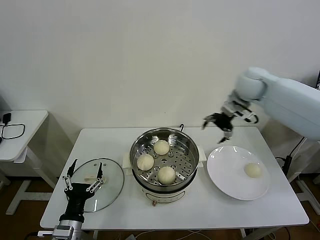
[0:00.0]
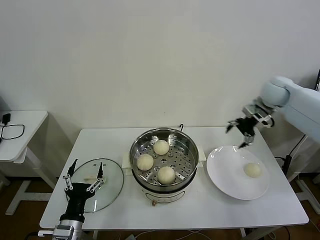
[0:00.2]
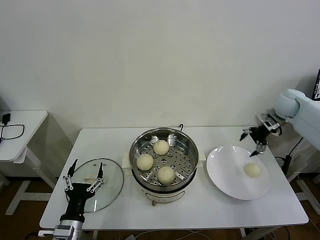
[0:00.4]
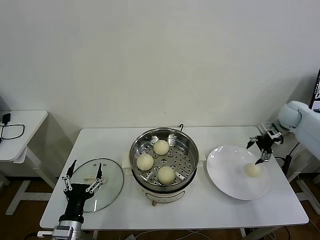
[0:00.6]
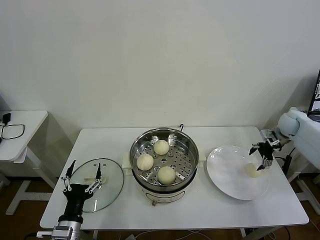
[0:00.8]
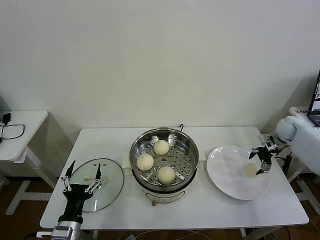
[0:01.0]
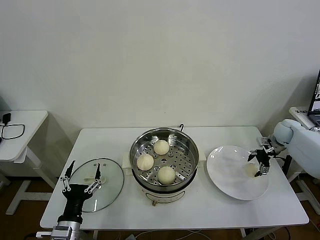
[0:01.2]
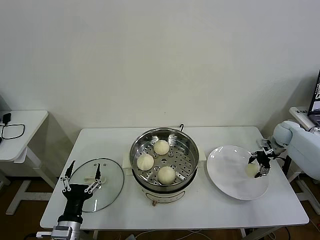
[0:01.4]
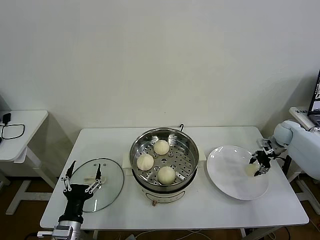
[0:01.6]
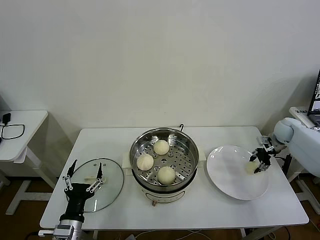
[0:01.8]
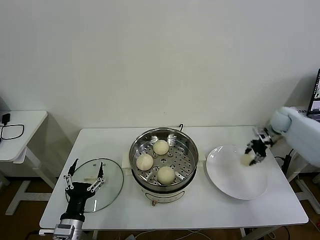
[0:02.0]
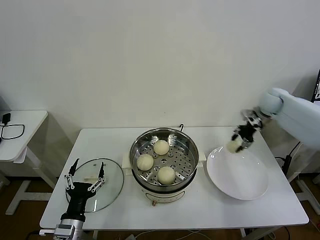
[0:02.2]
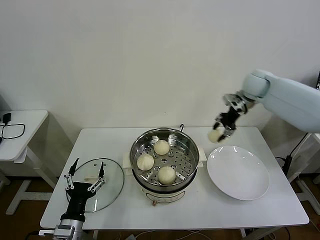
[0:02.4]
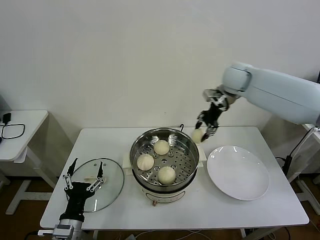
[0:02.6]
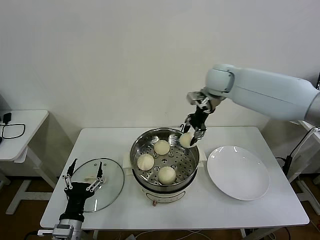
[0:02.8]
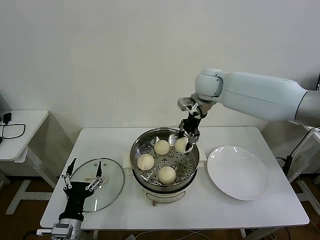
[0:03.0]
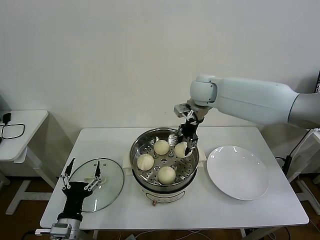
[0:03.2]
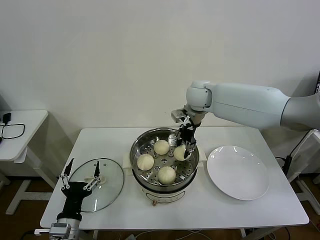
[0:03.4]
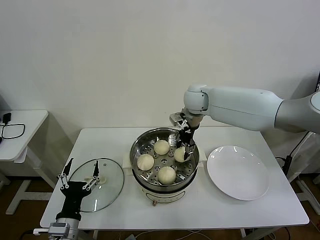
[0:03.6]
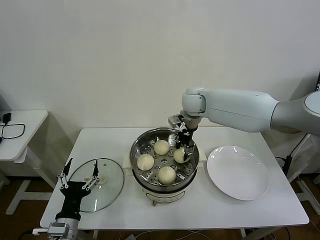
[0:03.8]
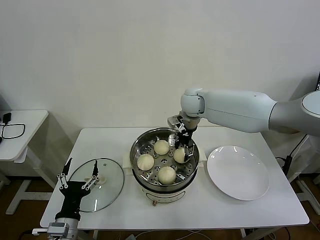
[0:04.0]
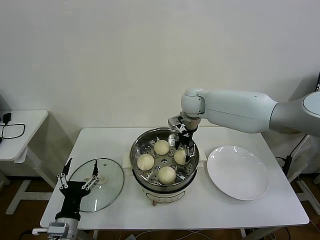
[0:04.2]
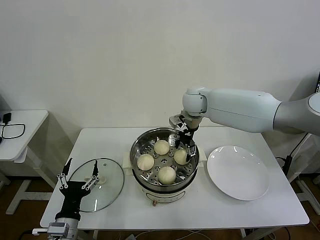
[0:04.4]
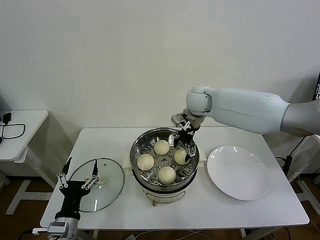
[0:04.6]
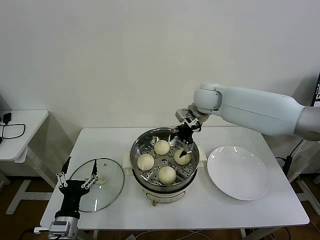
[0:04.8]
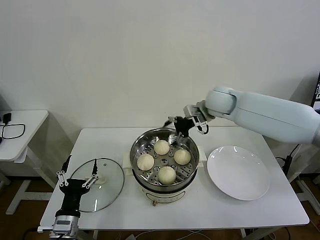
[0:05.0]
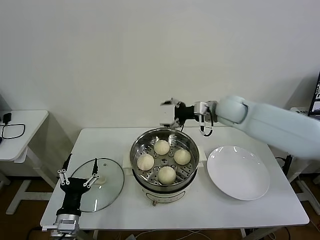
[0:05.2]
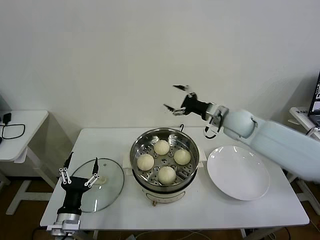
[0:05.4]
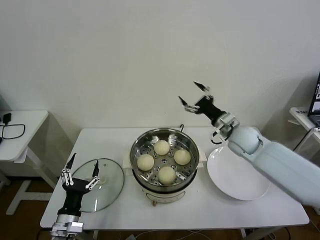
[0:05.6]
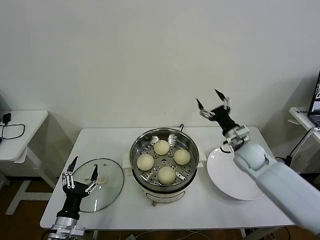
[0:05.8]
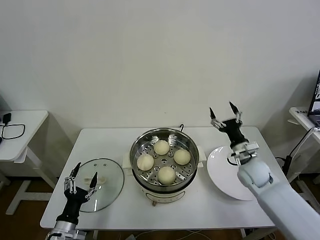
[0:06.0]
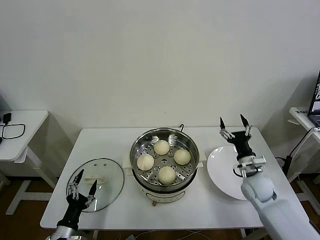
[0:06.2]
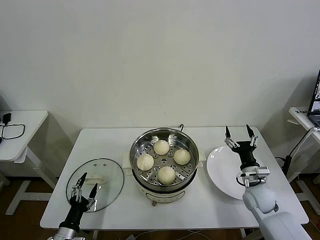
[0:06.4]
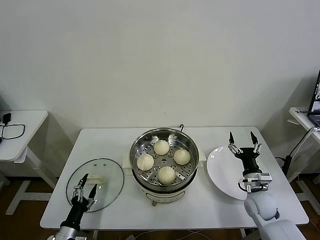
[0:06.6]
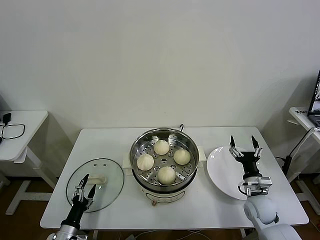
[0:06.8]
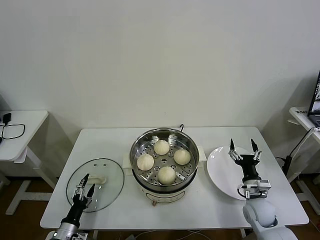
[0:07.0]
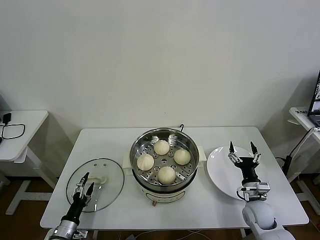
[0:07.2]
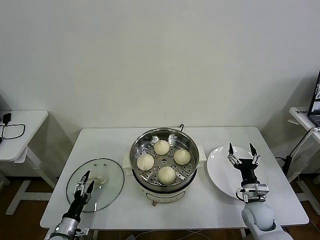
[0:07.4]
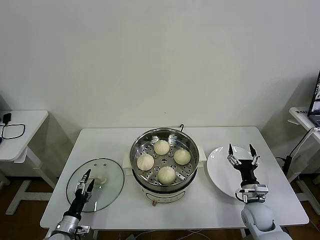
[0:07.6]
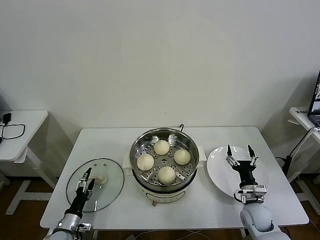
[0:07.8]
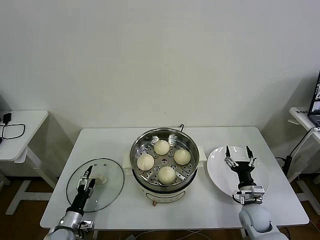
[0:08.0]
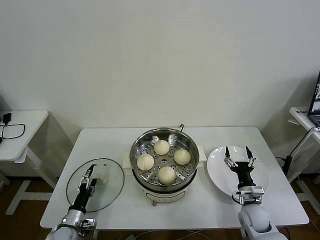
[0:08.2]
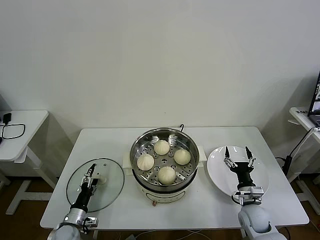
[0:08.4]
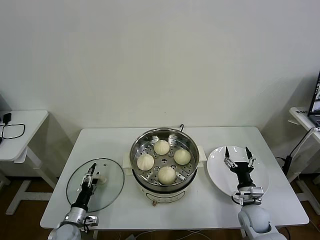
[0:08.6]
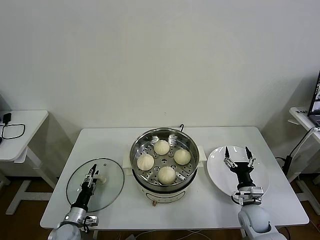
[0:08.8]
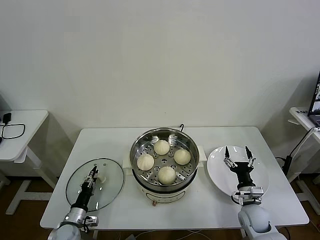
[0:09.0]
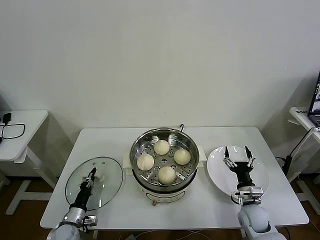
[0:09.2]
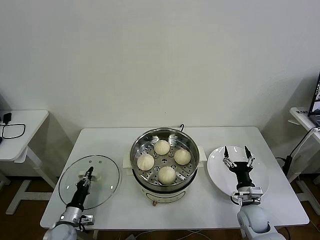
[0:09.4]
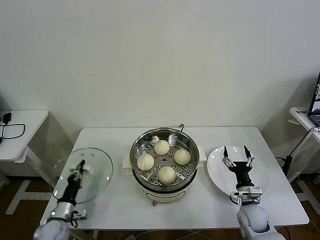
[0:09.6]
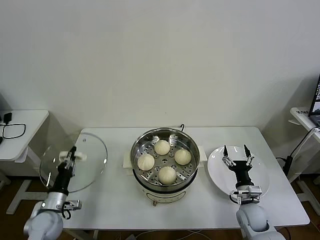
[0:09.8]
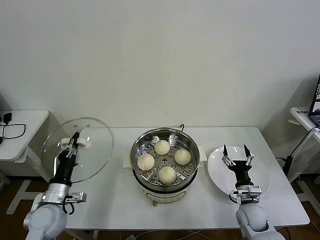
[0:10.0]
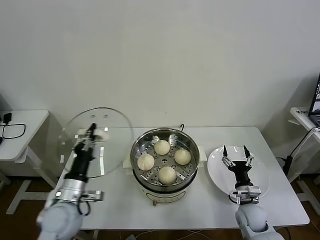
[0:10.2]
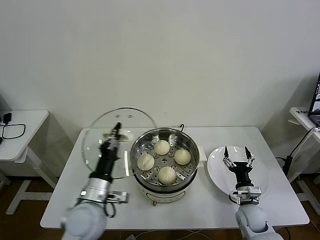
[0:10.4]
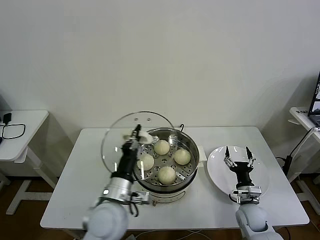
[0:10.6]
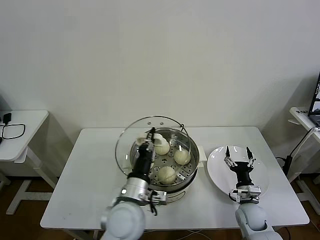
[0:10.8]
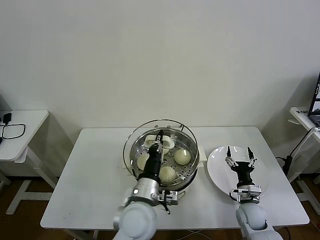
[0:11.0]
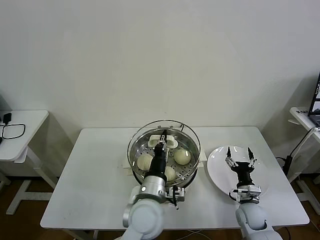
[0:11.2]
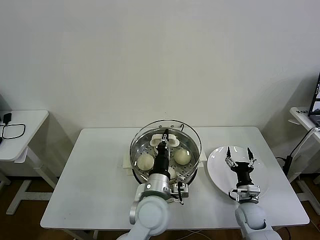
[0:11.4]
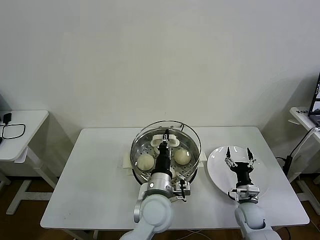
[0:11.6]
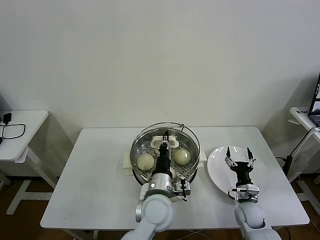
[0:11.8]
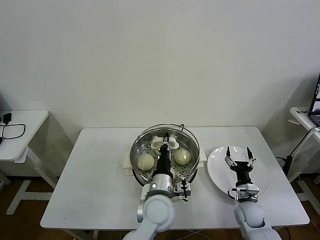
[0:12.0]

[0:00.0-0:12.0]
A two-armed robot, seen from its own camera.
Task of the whole recording: take steamed baozi put them in steamer then cover it.
Step, 0:00.0 to 0:01.6: Grasp the baozi in the plate with right gripper.
Step, 0:01.8 to 0:04.6: Place the baozi on the steamer with right gripper.
Step, 0:04.8 to 0:09.4: Grasp the pot lid with left gripper.
0:00.0 to 0:01.6: The right gripper travels downward and to the right by about 30 cm, and closes.
0:01.6 to 0:03.0: The right gripper is displaced to the left and upward by about 40 cm.
0:03.0 to 0:04.4: The right gripper moves downward, some 5 cm, and opens up.
0:04.4 to 0:06.0: The left gripper heads downward, covering some 5 cm; the right gripper shifts some 30 cm to the right, downward and backward.
0:06.0 to 0:07.6: The left gripper goes some 10 cm downward; the right gripper shifts roughly 15 cm downward and backward.
0:07.6 to 0:09.0: The left gripper closes.
0:09.0 to 0:10.4: The left gripper moves upward and to the right, some 25 cm, and closes up.
0:10.4 to 0:12.0: The left gripper is displaced to the right by about 20 cm.

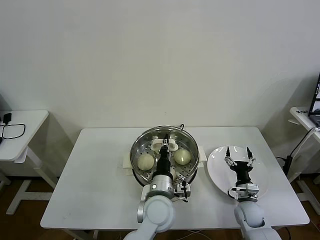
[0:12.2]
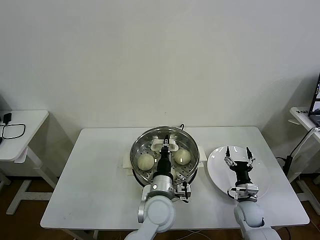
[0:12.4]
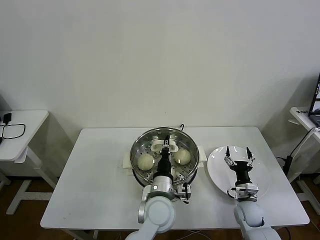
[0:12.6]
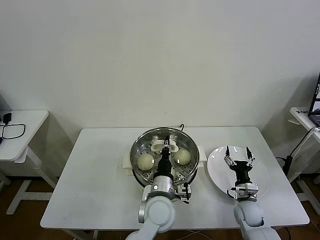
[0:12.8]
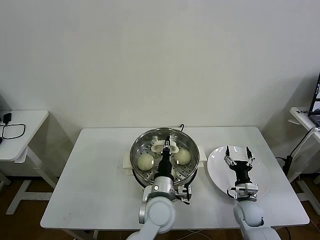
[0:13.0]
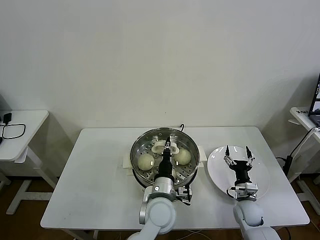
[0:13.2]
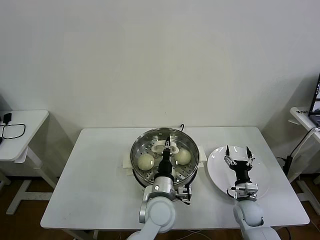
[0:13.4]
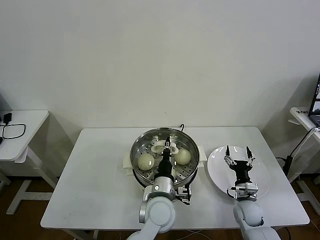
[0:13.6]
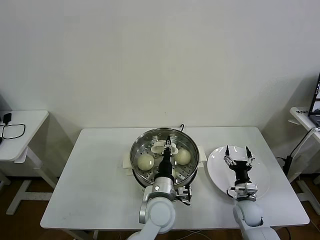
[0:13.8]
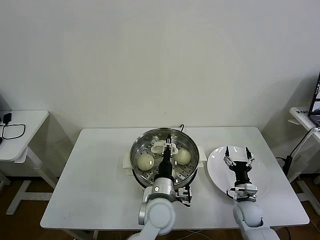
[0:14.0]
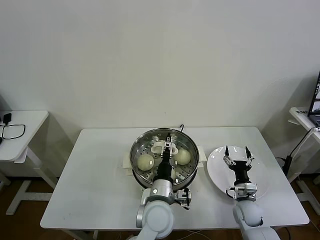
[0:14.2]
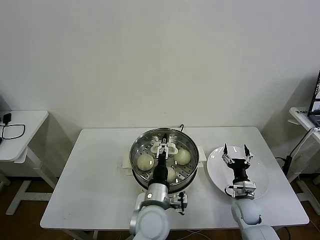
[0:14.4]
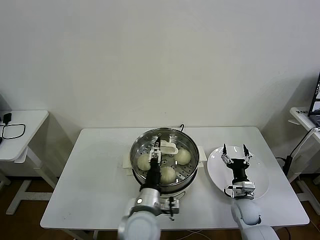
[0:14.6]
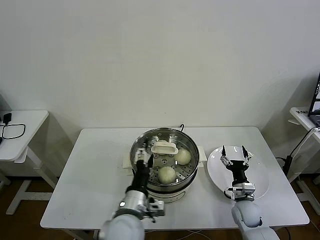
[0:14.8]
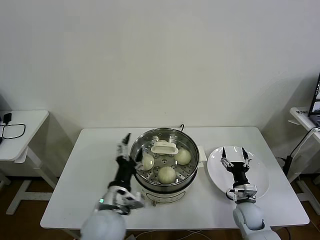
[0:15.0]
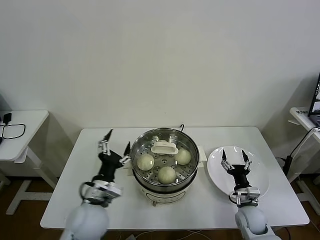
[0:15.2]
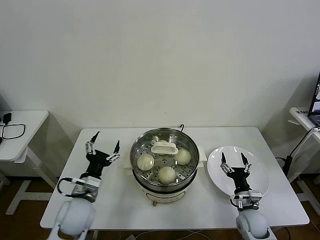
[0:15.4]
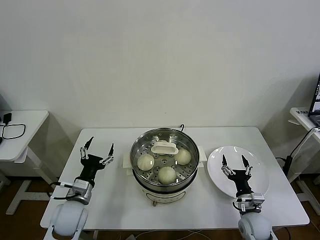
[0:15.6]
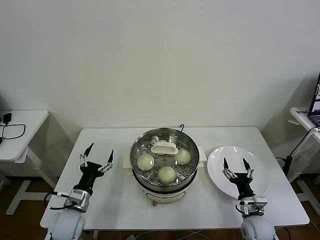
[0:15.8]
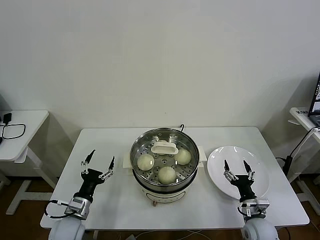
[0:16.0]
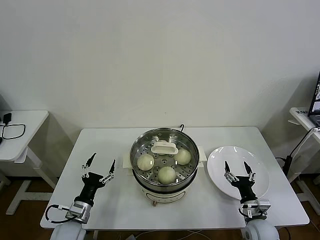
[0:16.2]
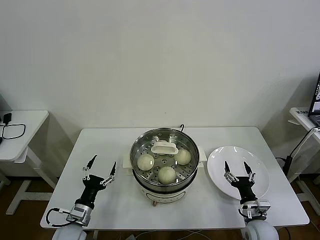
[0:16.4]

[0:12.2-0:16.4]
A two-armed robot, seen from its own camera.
Task of the whole recording: take steamed baozi put them in steamer then cover it.
Step, 0:12.2 to 0:14.2: Place the pot lid on the steamer with left gripper.
0:12.2 to 0:13.6: The grippers make only small movements.
0:13.6 to 0:15.0: The left gripper heads to the left, backward and upward, covering some 15 cm, and opens its fingers.
0:15.0 to 0:16.4: The right gripper travels backward by roughly 5 cm. Meanwhile the left gripper moves to the left and downward, some 25 cm.

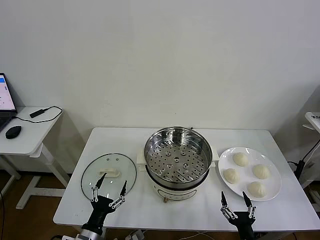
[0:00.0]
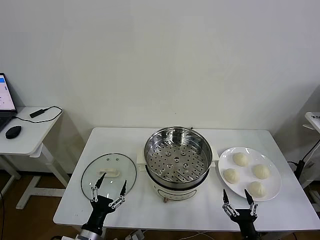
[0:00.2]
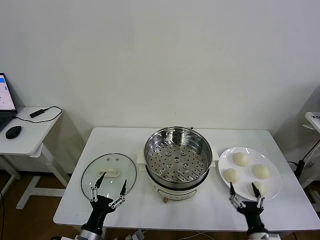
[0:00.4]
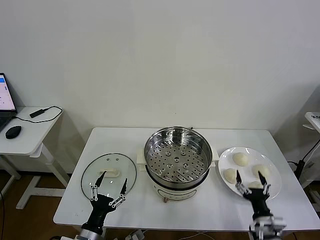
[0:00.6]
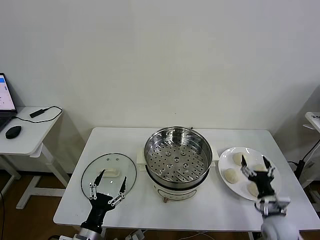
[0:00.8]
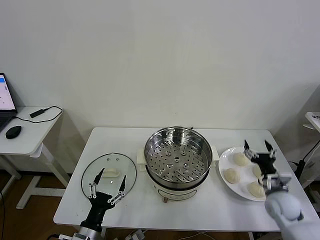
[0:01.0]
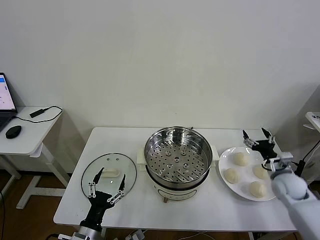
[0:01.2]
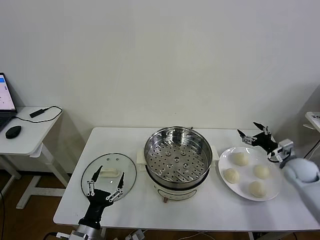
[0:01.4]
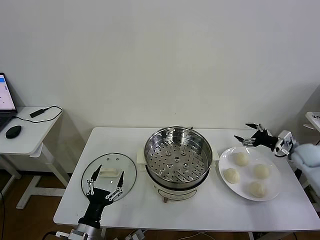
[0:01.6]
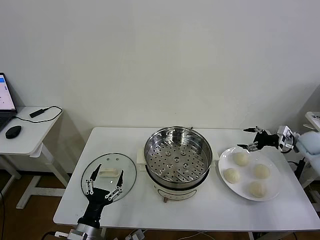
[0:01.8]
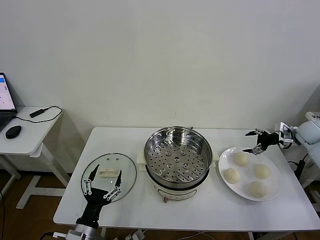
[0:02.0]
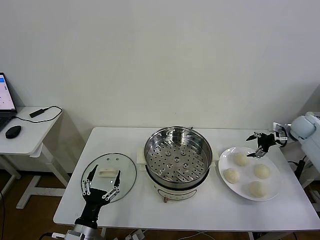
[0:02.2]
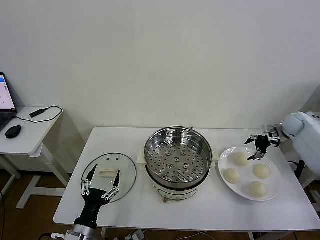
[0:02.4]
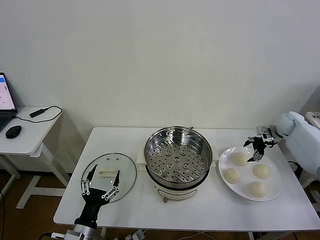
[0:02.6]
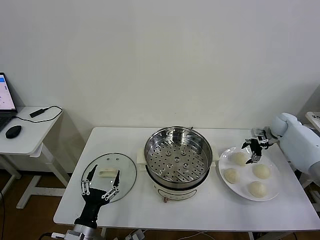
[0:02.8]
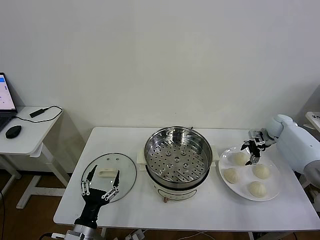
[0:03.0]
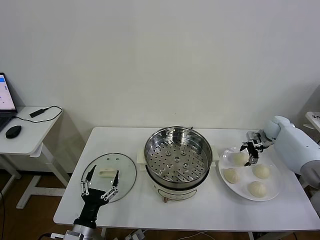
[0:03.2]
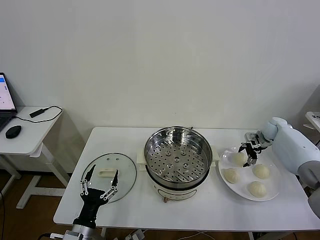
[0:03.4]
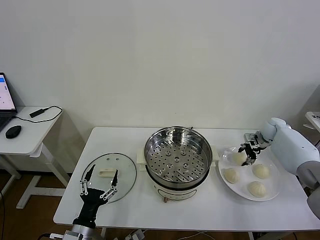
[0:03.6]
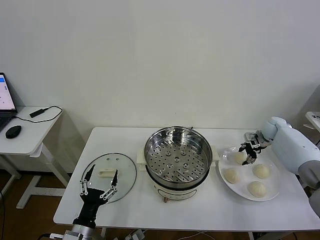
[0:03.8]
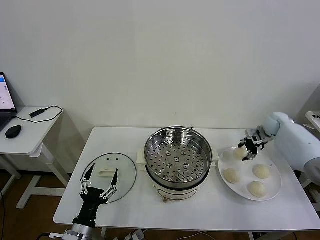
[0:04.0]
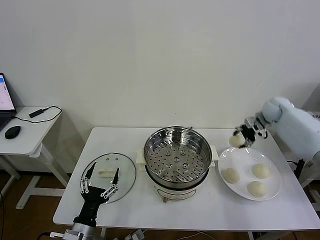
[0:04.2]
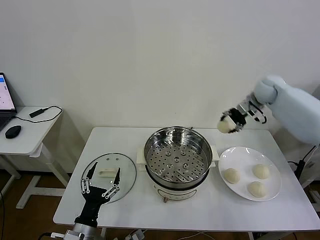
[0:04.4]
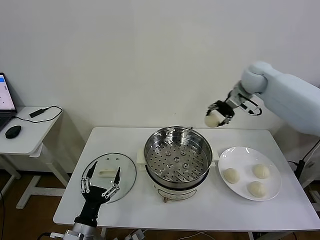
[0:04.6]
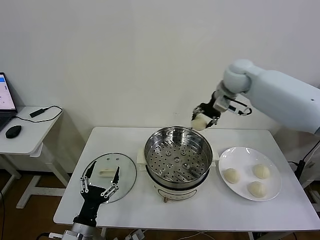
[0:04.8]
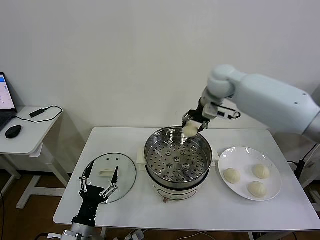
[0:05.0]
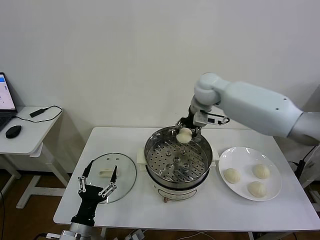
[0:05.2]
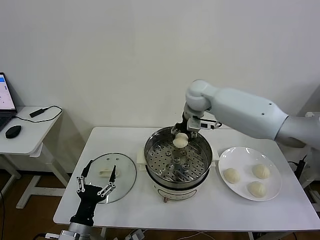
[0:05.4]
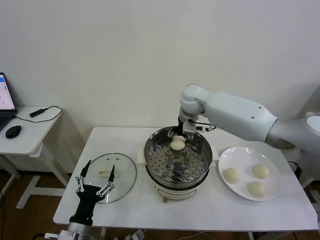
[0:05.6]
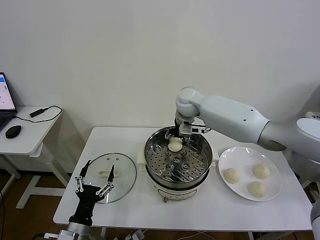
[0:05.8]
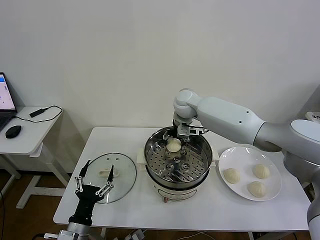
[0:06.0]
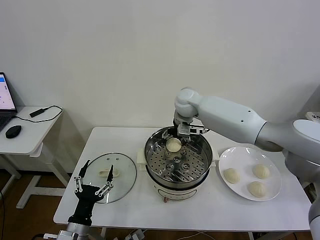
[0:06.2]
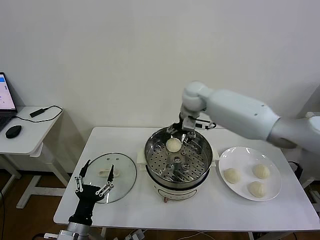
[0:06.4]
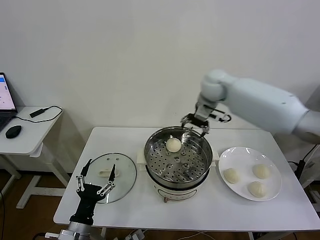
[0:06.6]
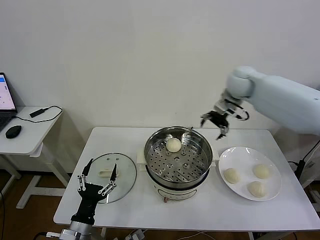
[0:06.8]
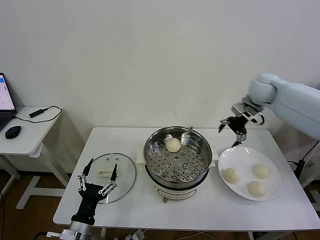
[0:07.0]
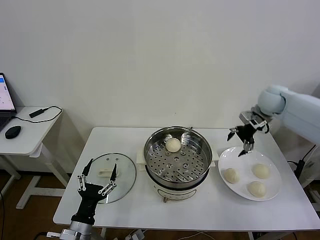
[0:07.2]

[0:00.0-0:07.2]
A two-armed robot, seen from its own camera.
Task of the whole recording: take steamed baozi put them in steamer then cover it.
Step, 0:00.0 to 0:03.8: Grasp the baozi in the plate with right gripper.
Step, 0:04.0 to 0:06.0: Place the baozi on the steamer with right gripper.
0:01.4 to 0:02.8: The right gripper travels forward by approximately 15 cm.
0:02.8 to 0:04.4: The right gripper shifts some 25 cm upward and to the left, and closes.
0:04.4 to 0:05.8: The right gripper shifts approximately 25 cm to the left.
0:05.8 to 0:07.2: The right gripper is displaced to the right by approximately 30 cm, and opens its fingers.
